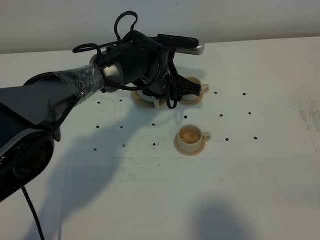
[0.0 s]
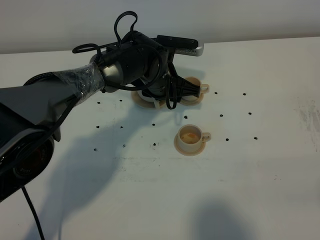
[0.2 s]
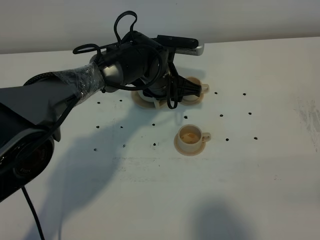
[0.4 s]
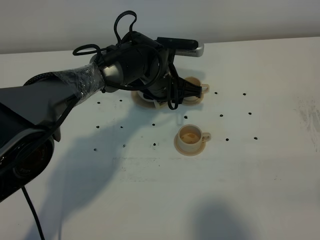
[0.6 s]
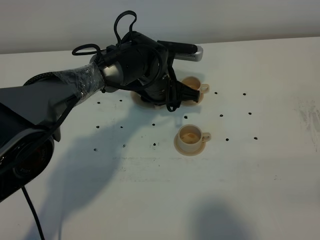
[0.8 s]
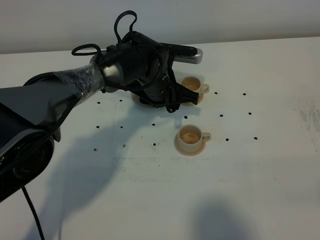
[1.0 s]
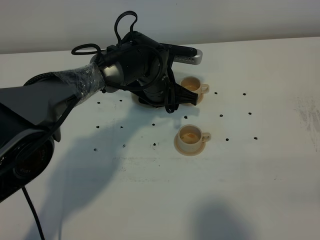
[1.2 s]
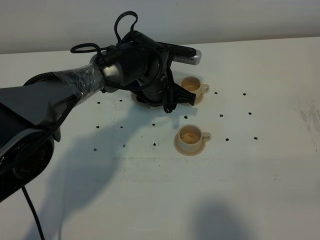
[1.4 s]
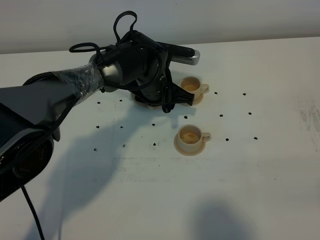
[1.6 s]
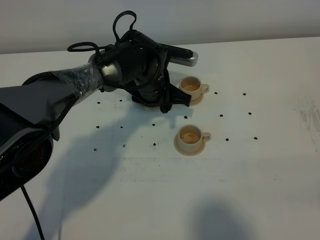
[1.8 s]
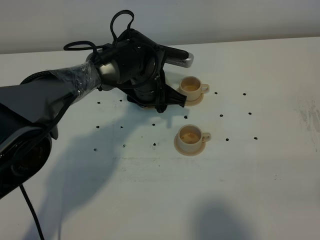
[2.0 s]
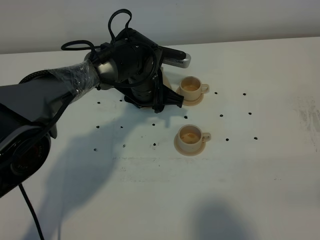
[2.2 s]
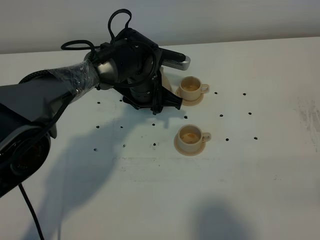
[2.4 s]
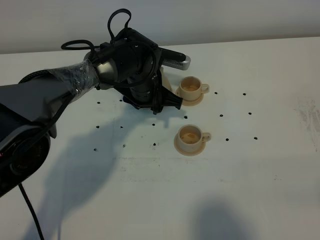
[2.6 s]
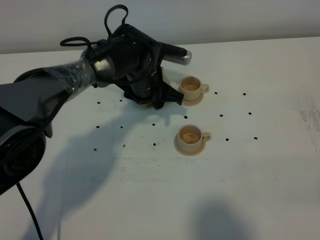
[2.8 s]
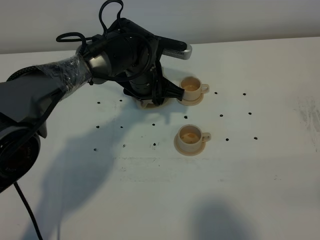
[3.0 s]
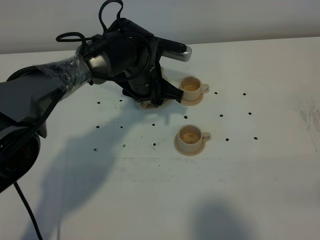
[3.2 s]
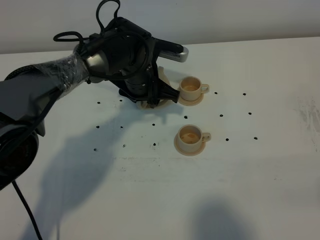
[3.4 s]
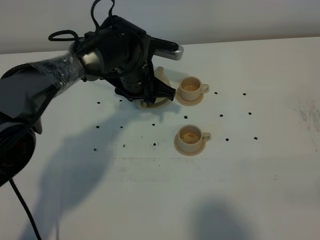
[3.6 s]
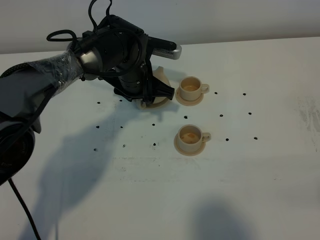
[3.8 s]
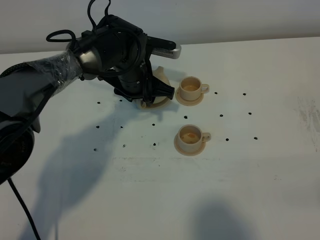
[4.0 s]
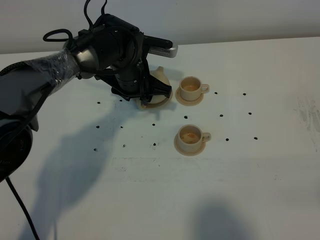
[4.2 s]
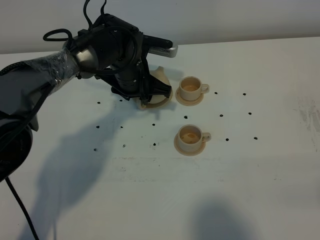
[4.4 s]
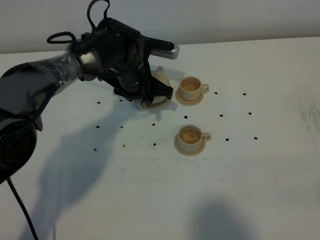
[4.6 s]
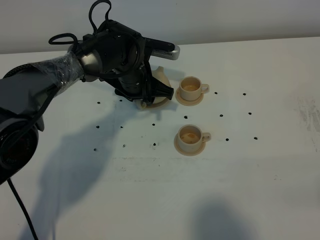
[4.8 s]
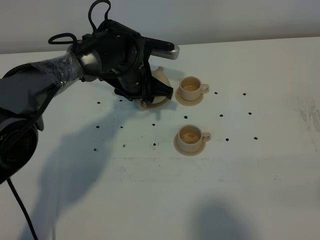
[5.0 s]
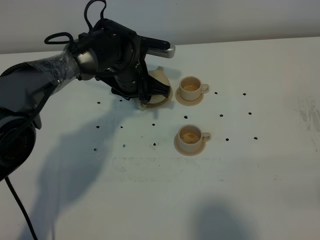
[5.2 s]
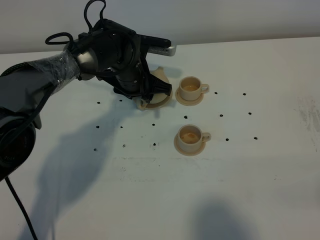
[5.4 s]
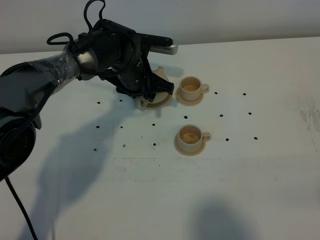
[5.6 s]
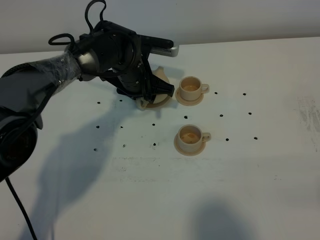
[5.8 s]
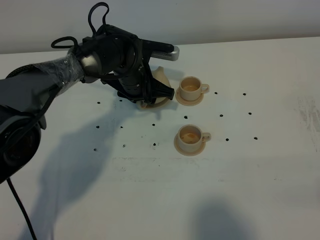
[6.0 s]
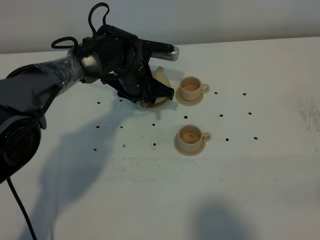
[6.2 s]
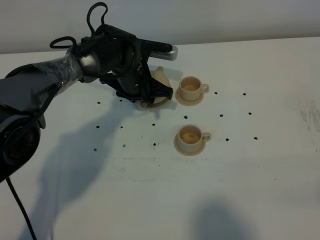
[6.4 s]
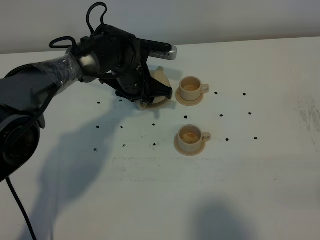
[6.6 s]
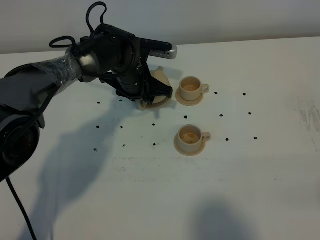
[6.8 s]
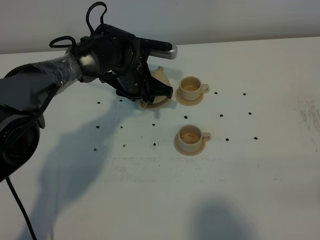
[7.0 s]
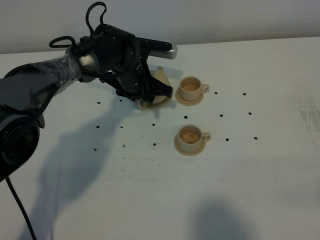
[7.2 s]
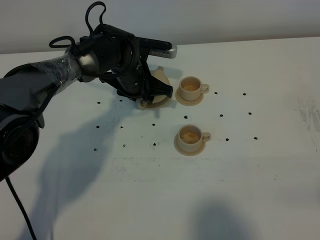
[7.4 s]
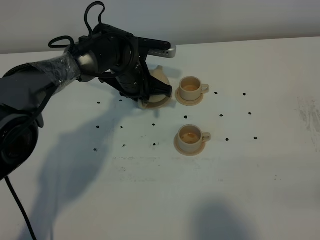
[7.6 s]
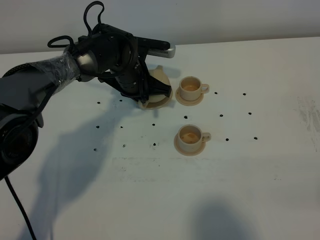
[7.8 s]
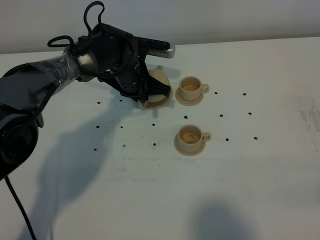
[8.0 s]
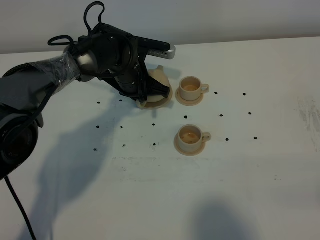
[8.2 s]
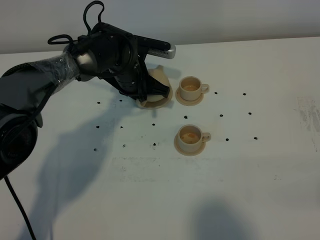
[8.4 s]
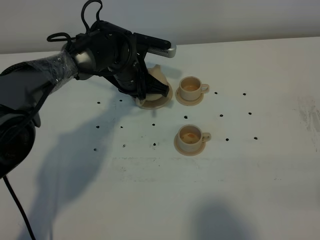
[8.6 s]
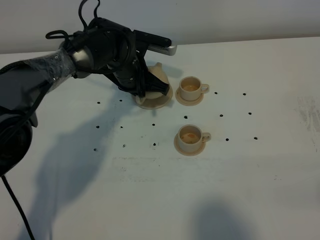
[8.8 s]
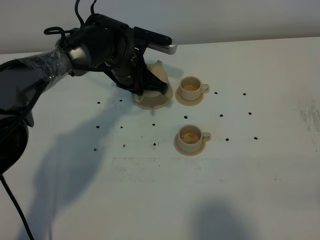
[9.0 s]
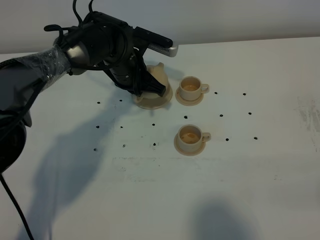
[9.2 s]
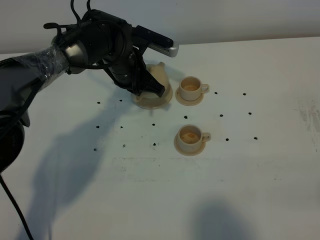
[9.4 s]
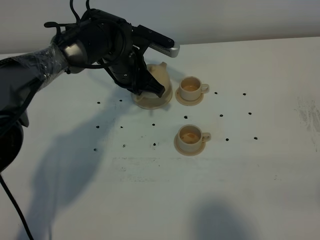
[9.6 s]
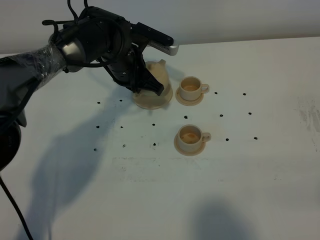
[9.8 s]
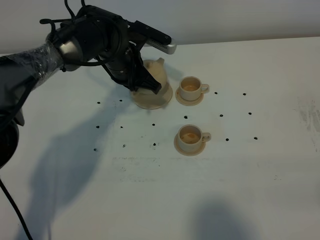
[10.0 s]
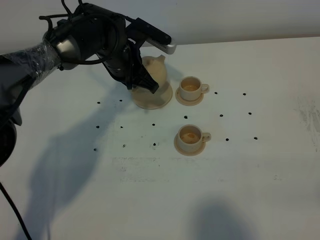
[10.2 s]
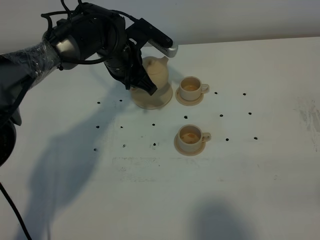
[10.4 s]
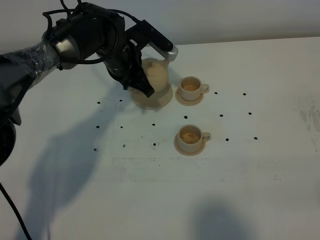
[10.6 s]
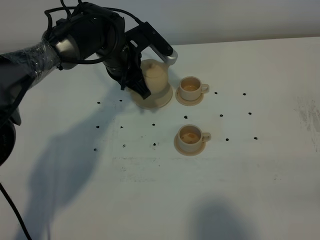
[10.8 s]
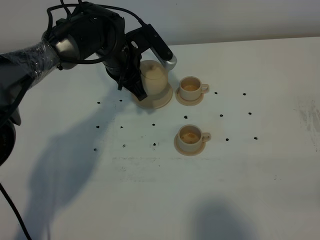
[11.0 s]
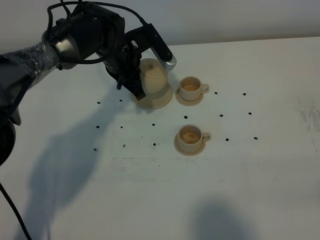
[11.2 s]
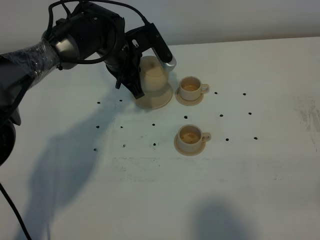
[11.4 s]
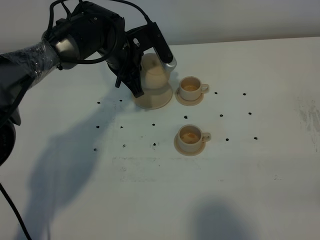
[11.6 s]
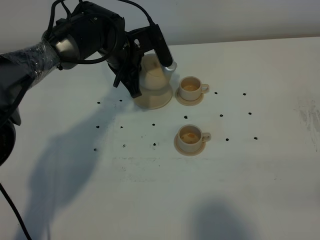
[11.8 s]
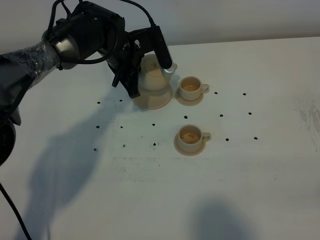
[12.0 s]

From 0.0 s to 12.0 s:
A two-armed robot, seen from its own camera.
Task of the whole recording: grasp the brown teapot and pour the tea into the two brown teacups one by one, put the brown teapot back in its original place.
Step, from 0.0 s to 10.0 s: Pick up the teapot with the left gripper.
From 0.0 s to 6.0 s: The grippers move only a little.
From 6.0 s to 7.6 s: The left gripper closes its fingers.
From 7.6 s to 9.0 s: The grippers move only a little.
From 9.0 s to 10.4 s: There are only small adjustments of the grippers.

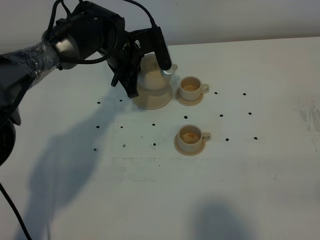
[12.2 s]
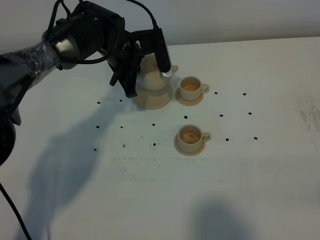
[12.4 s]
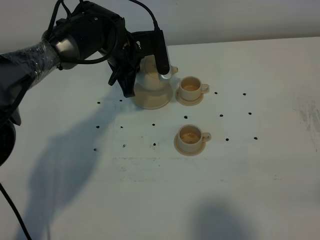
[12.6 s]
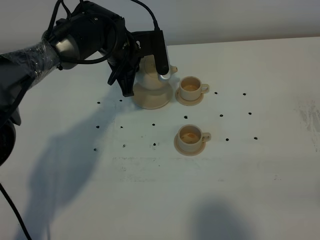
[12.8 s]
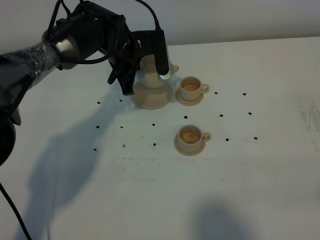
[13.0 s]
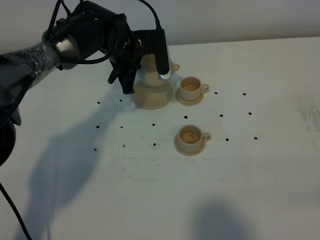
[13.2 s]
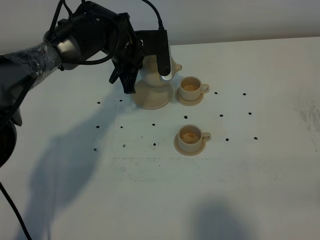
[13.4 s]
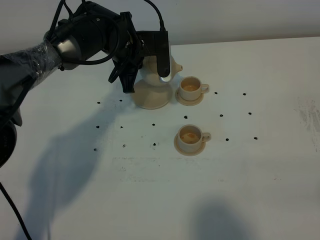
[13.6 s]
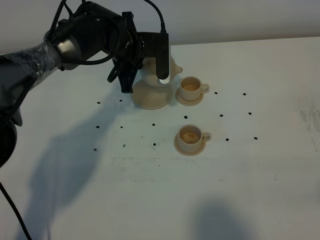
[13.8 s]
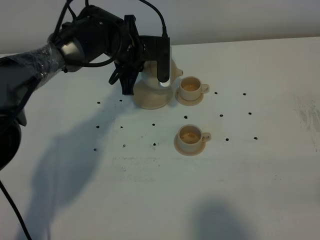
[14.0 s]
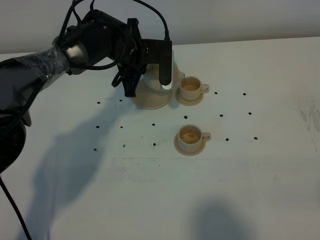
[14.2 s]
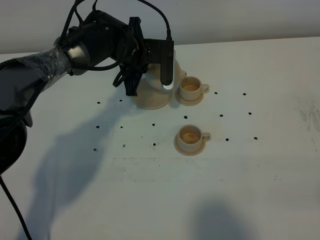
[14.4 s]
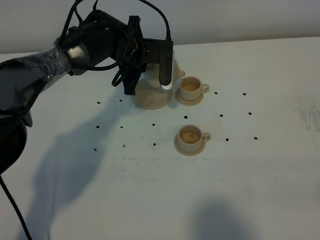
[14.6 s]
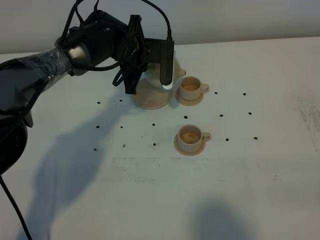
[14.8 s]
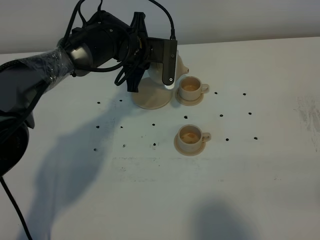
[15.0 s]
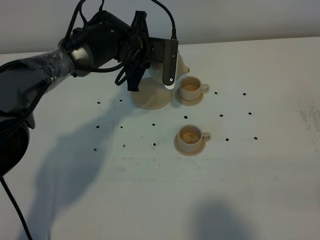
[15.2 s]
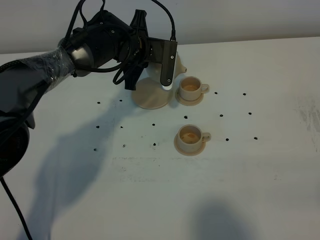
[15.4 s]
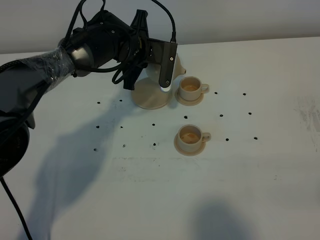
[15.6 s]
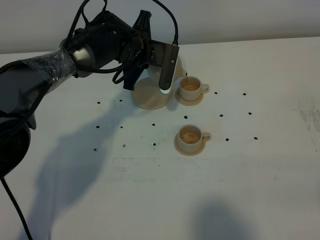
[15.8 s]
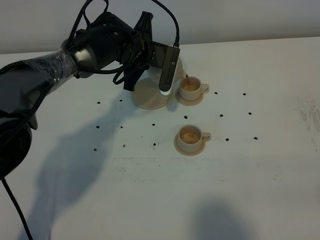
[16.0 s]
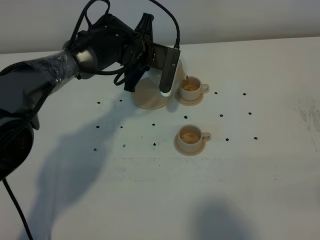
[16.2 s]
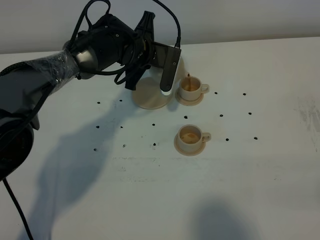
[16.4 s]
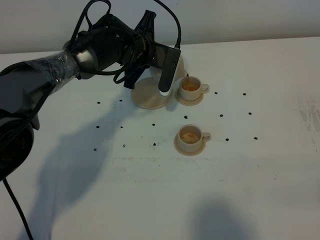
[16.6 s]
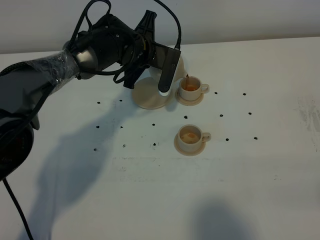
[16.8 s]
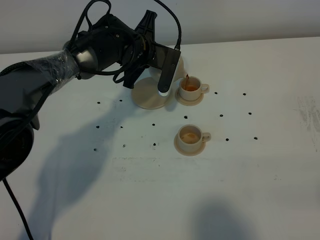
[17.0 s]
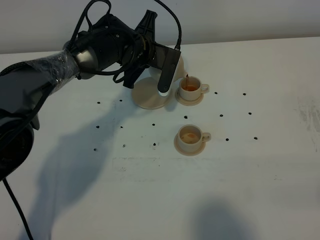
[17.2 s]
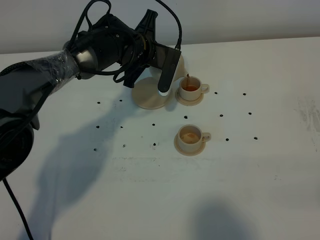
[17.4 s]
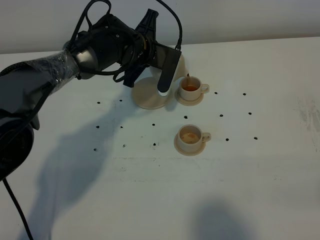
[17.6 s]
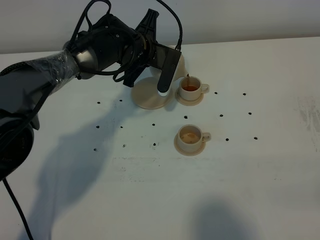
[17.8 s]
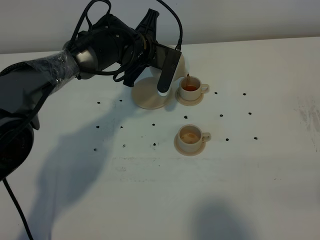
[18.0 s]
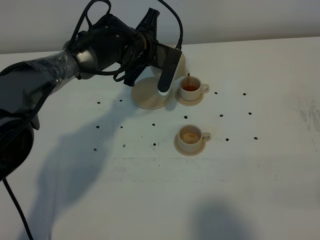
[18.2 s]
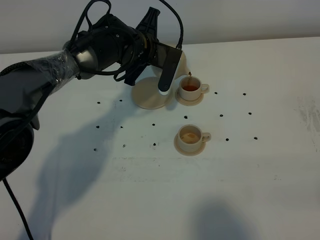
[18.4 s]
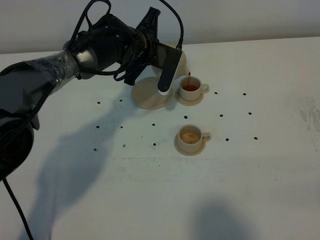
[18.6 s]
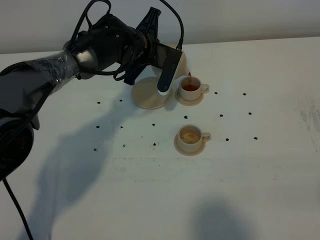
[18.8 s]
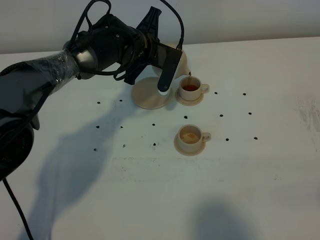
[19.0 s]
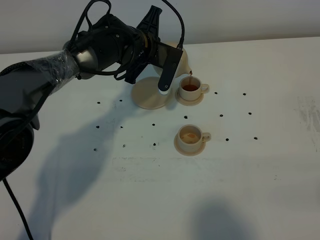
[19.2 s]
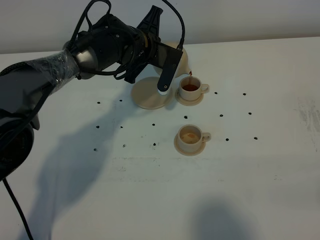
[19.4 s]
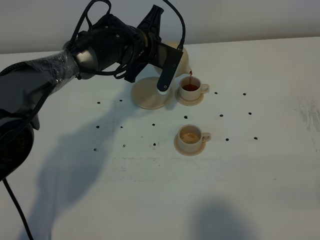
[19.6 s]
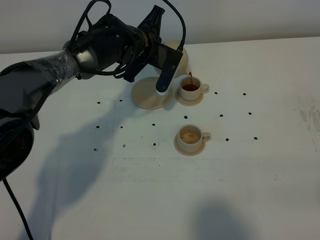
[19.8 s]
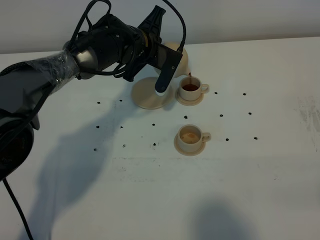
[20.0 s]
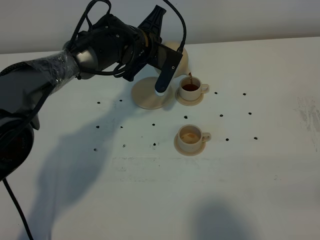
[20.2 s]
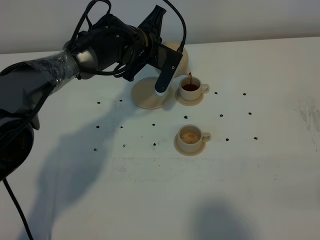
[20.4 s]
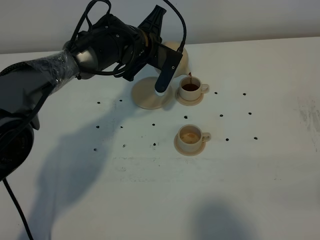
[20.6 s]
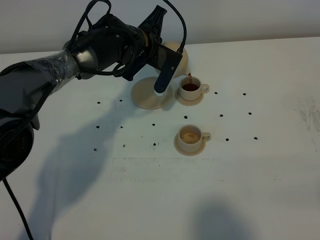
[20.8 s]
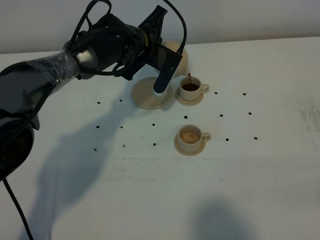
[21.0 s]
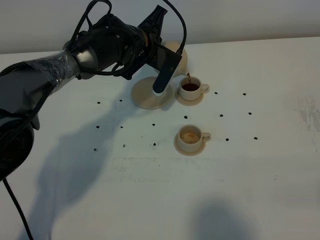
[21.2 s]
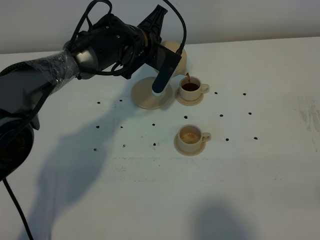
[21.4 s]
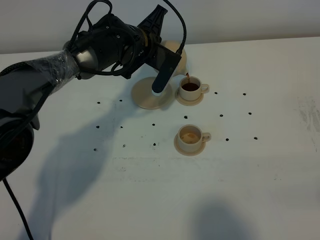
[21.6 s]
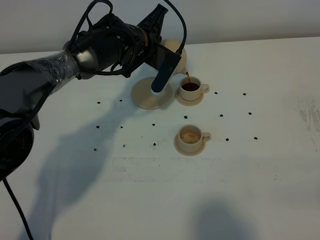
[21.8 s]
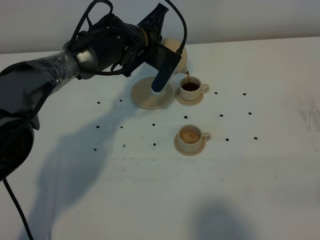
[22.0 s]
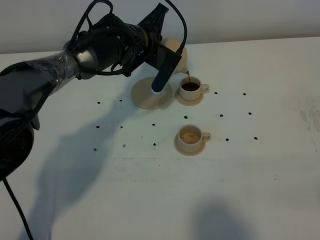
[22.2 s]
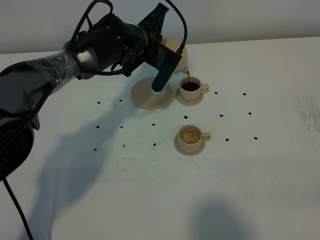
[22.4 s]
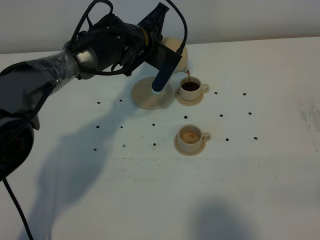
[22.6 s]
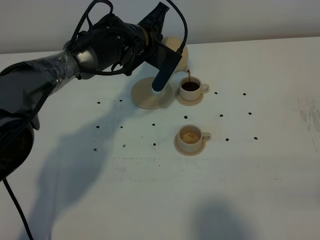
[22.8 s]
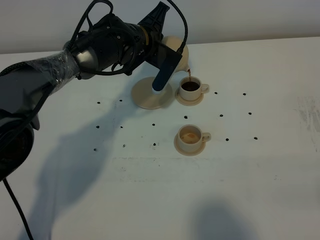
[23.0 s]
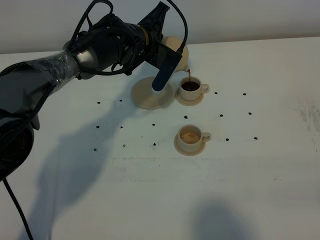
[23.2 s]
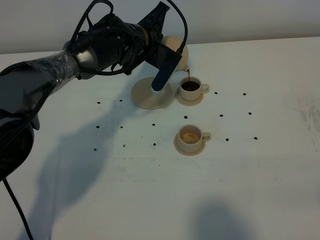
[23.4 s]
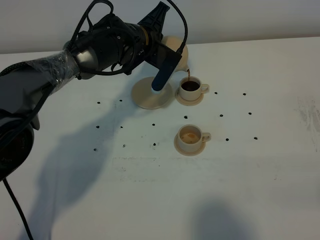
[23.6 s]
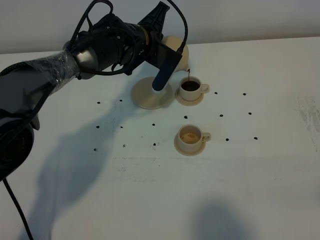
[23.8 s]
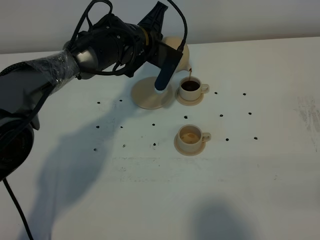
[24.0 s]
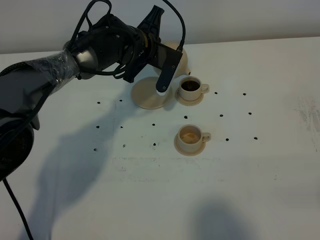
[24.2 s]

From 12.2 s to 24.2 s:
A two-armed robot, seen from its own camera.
Task of the whole recording: grasp the brown teapot and pour the tea into the two brown teacups one by one, put the brown teapot back in its original place.
From 12.2 s to 13.8 s: The grippers move only a little.
From 13.8 s to 15.2 s: The grippers make only small movements.
From 15.2 s to 16.6 s: There are only small adjustments of the grippers.
From 16.6 s to 18.2 s: Both grippers stay put.
From 18.2 s to 19.8 s: The grippers stay close to where they were, moving slightly.
From 19.8 s to 21.2 s: Neither gripper changes place.
From 21.2 s to 22.6 s: Neither gripper changes place.
From 22.6 s to 24.2 s: There are only small adjustments of the grippers.
